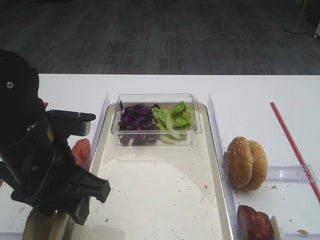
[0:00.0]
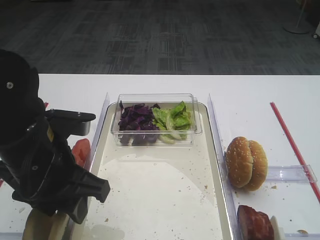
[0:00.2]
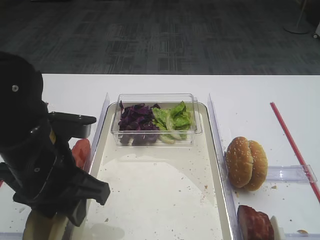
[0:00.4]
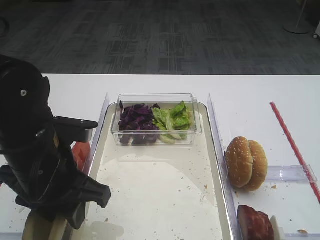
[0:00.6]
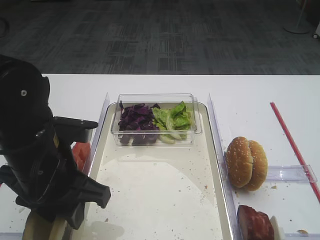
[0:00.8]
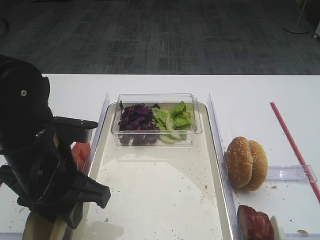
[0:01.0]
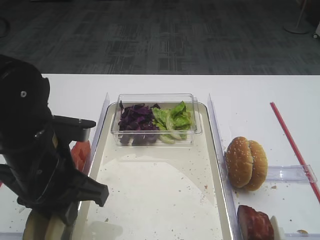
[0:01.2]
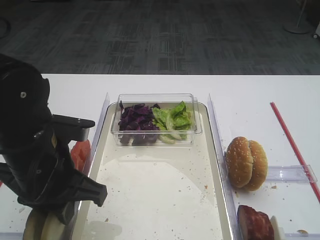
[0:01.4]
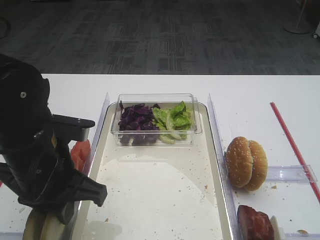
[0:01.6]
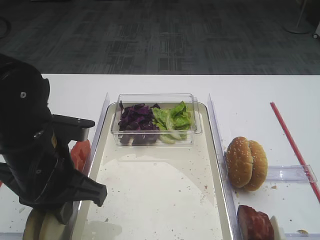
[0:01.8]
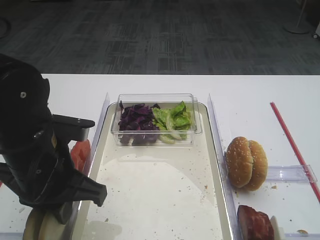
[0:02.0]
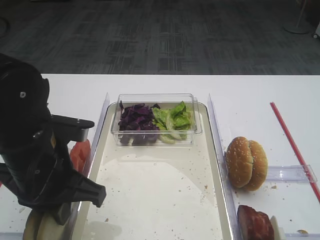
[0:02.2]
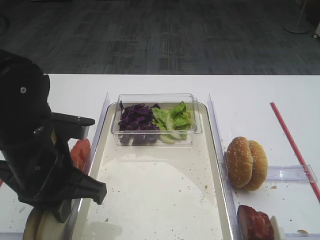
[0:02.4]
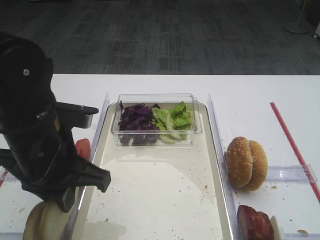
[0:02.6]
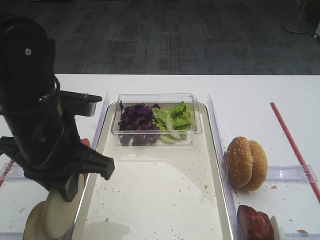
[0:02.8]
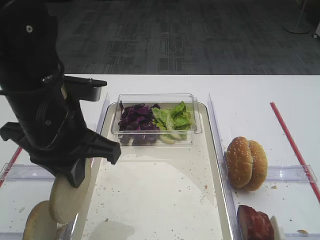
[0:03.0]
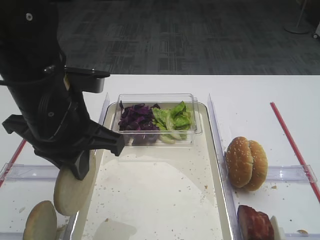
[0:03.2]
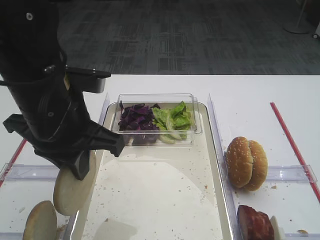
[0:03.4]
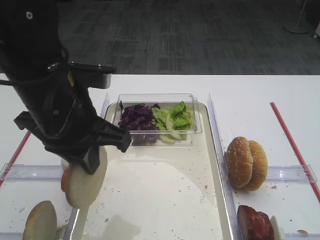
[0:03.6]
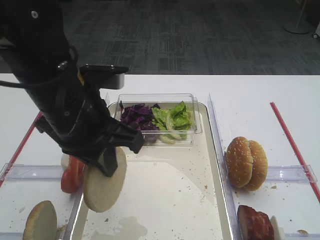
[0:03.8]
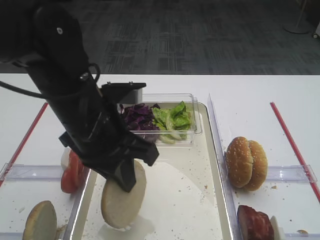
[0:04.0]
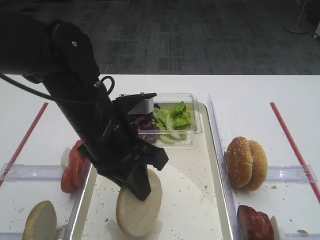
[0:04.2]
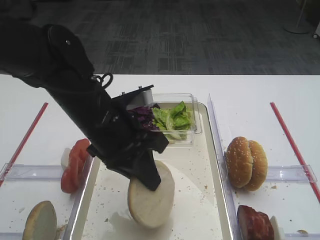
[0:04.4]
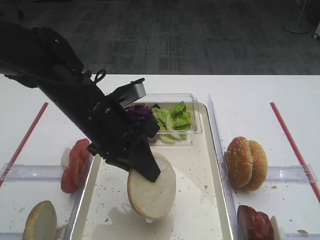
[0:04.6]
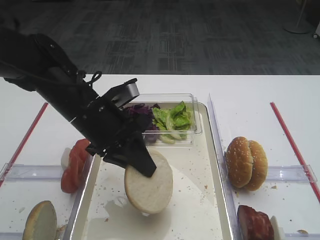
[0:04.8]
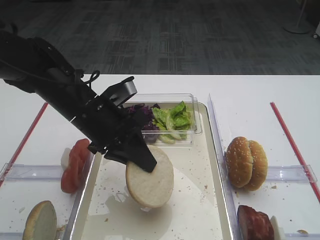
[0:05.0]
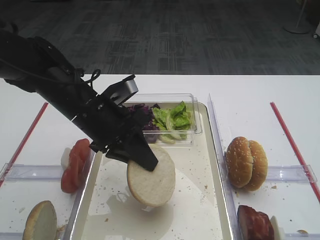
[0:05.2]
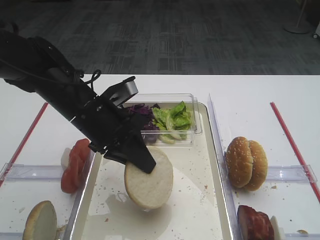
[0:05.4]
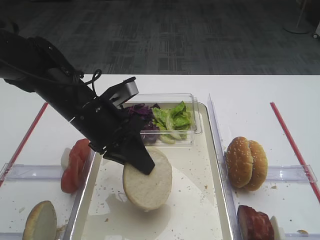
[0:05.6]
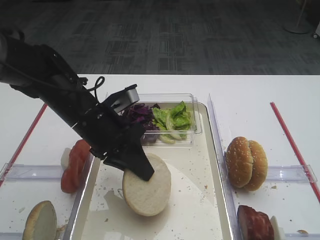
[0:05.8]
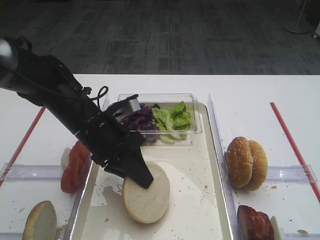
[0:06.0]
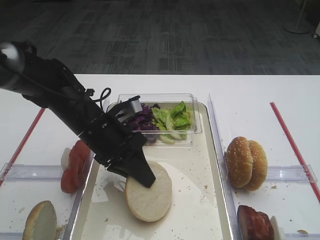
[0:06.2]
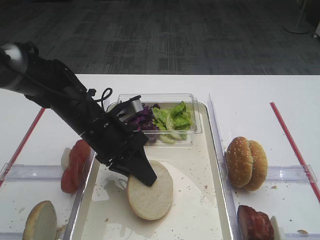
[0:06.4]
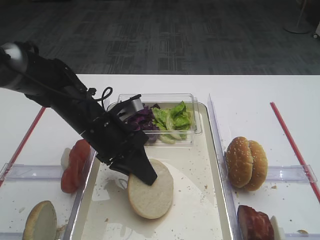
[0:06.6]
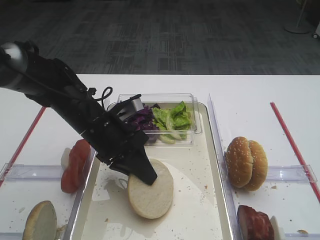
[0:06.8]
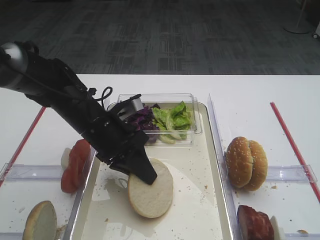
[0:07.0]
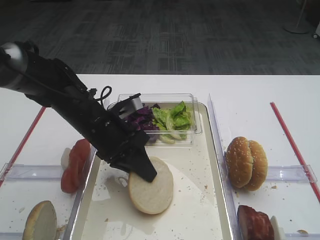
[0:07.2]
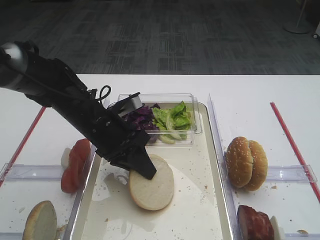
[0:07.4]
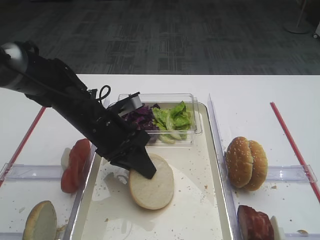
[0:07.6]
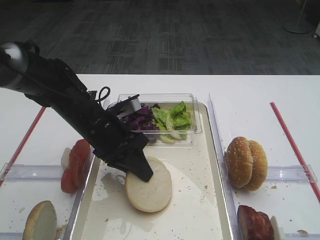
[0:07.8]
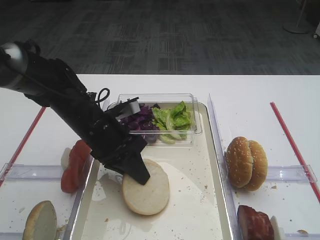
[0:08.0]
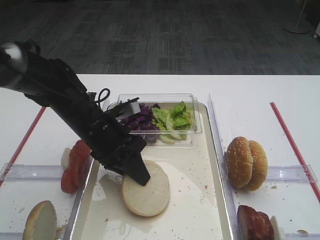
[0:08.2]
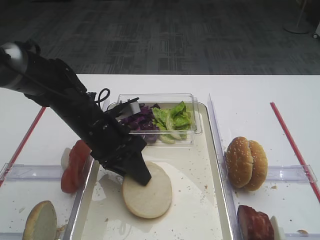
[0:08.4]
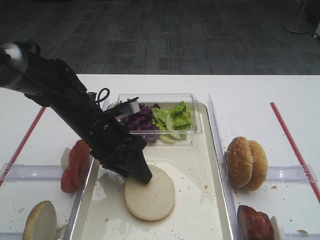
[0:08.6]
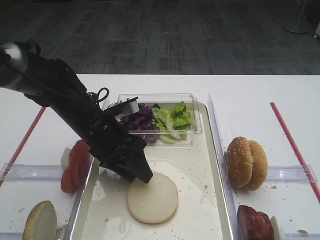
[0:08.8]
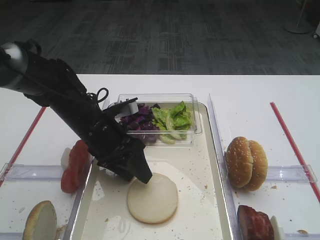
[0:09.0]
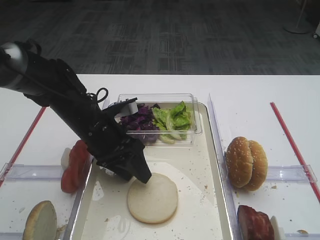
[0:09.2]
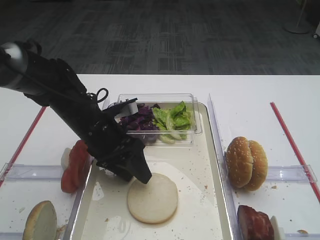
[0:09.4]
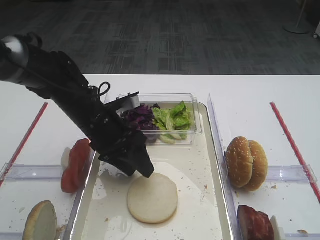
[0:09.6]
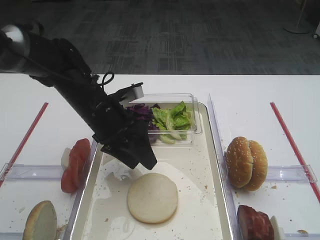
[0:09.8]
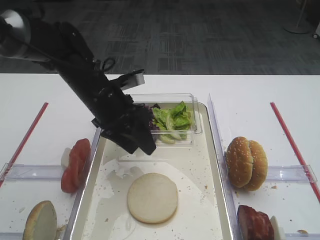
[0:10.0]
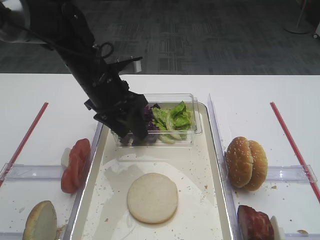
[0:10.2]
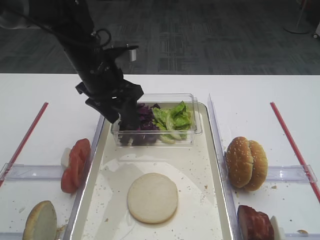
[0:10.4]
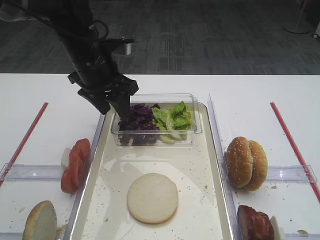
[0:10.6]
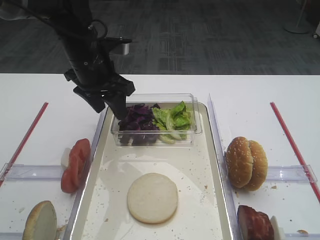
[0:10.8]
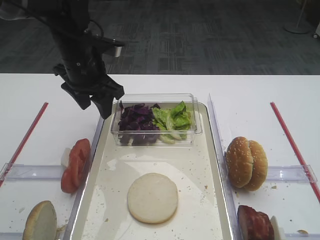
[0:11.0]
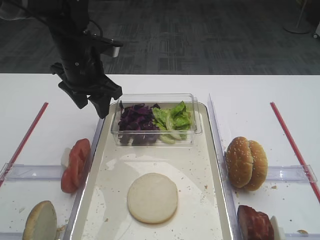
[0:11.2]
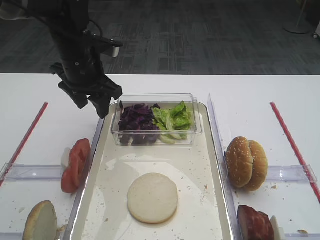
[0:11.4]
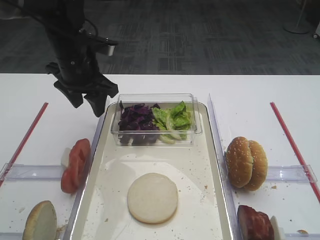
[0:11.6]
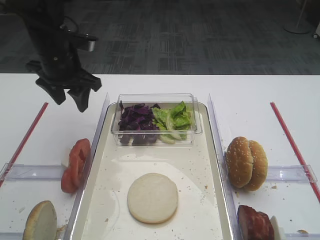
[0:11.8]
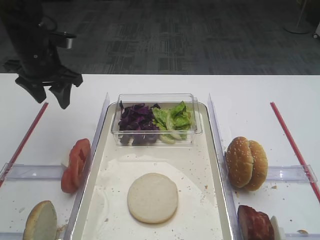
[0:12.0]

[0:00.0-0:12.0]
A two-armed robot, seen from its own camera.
Step, 0:00.0 to 0:02.8: Pick up the bread slice with the left gripper.
Step, 0:03.0 to 0:09.4: Place the bread slice on the tray with the left gripper.
0:00.0 to 0:01.6: The left gripper closes up.
0:01.6 to 0:03.0: The left gripper shifts some 5 cm upward.
0:03.0 to 0:04.4: The left gripper ends up roughly 5 cm from where it was.
0:04.4 to 0:06.0: The left gripper travels downward by some 5 cm.
0:06.0 to 0:07.6: The grippers stay close to where they were, moving slightly.
0:07.6 to 0:09.0: The left gripper opens.
0:09.0 to 0:10.4: The left gripper shifts approximately 10 cm upward and forward.
0:10.4 to 0:12.0: The left gripper travels to the left by some 10 cm.

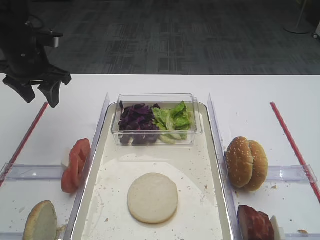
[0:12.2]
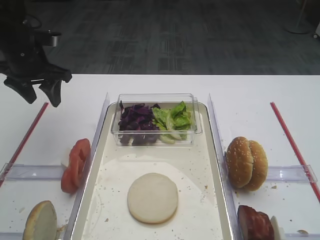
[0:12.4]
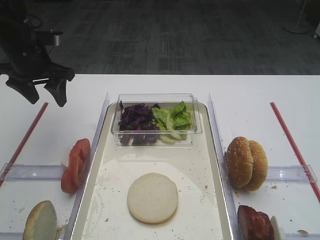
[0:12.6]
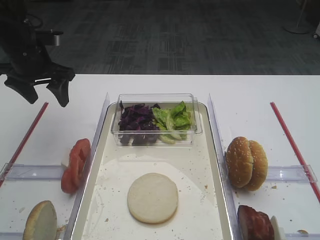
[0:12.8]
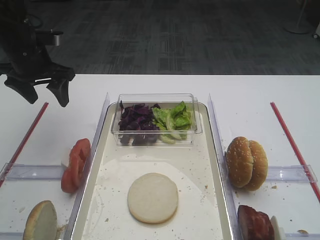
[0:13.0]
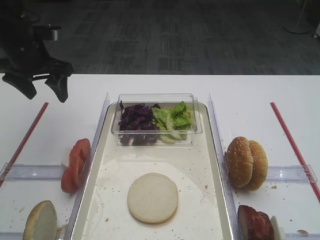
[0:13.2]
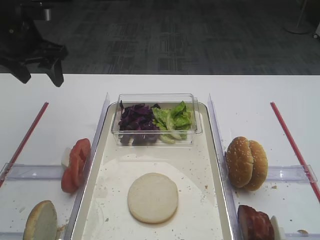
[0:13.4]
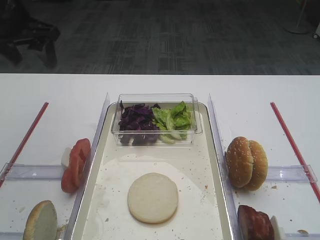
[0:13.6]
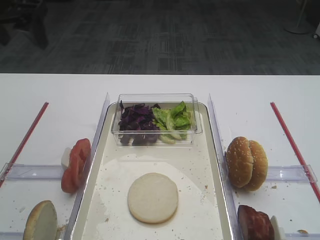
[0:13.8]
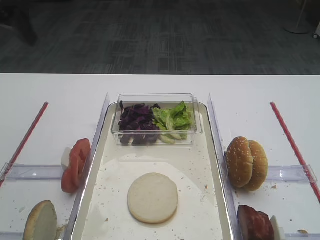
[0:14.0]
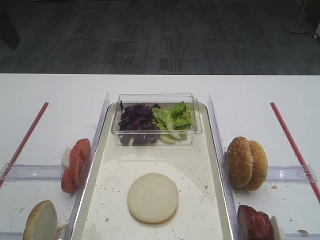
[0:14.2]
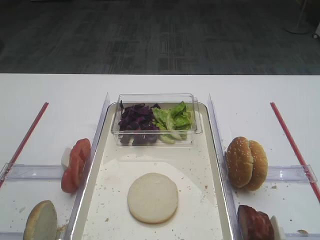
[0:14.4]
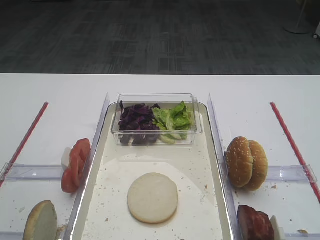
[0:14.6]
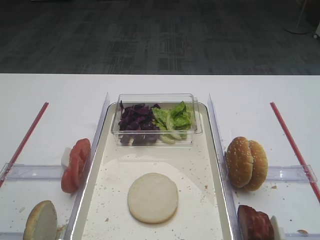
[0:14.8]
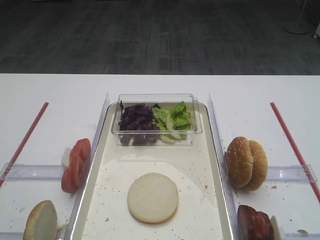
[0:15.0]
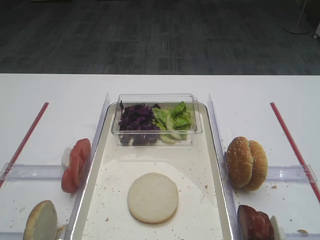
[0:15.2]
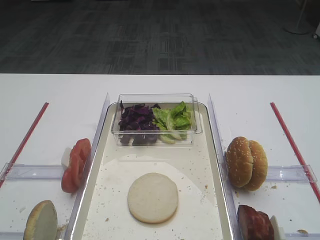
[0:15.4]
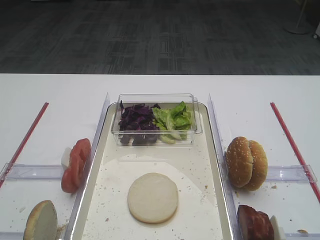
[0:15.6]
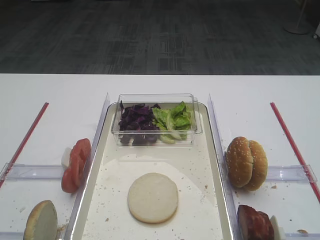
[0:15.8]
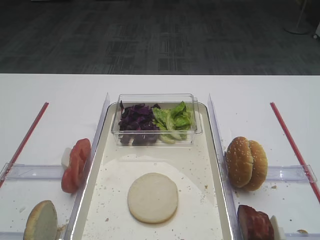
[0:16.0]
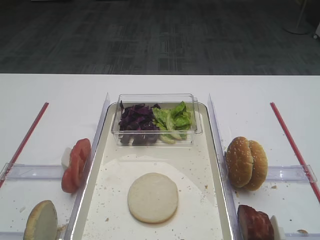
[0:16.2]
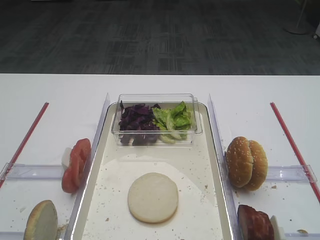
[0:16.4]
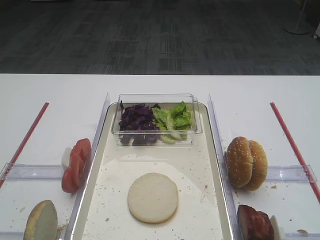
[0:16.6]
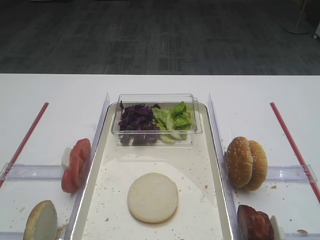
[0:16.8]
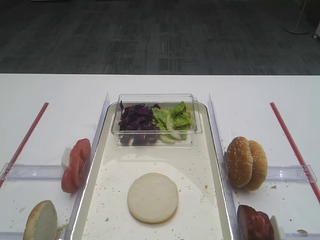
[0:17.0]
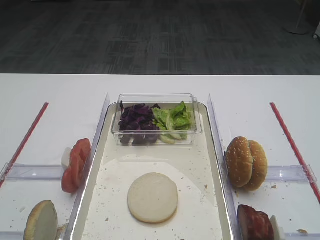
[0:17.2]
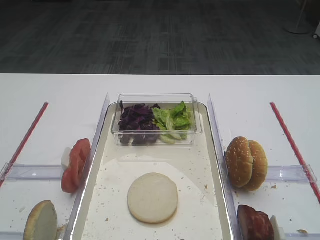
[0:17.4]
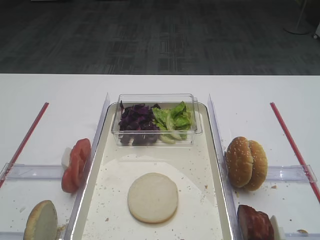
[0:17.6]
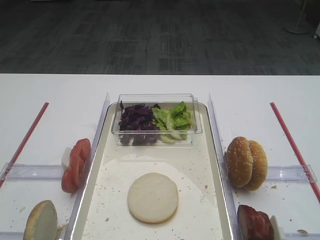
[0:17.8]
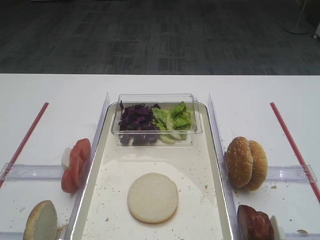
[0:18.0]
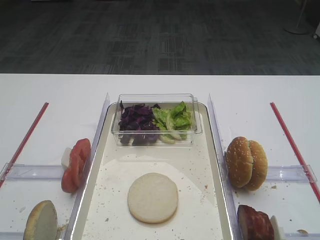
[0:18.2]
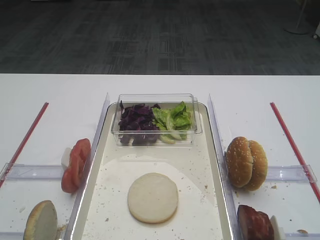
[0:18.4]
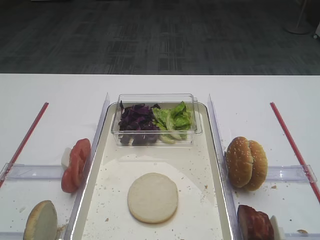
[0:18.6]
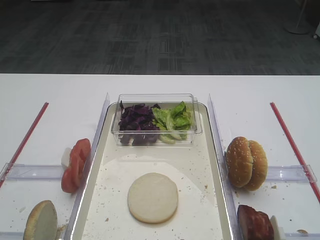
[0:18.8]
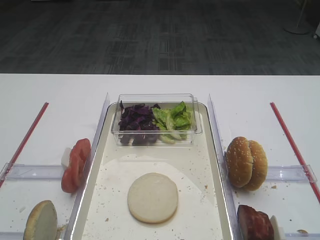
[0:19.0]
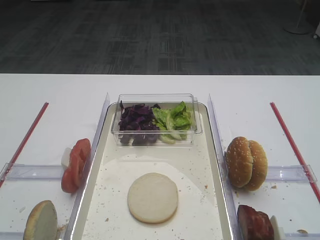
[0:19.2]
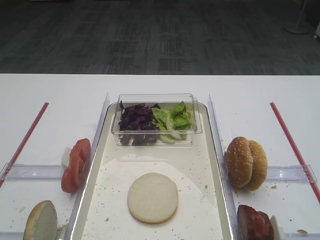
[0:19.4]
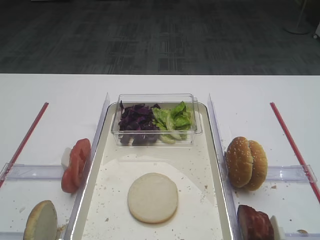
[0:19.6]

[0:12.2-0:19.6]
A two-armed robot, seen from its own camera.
0:12.2 to 0:13.6: The left gripper moves upward, some 10 cm.
0:13.6 to 0:15.2: The left gripper is displaced backward by about 30 cm.
0:18.2 to 0:19.6: The two grippers keep their place.

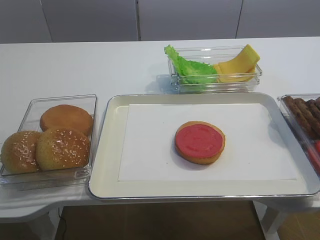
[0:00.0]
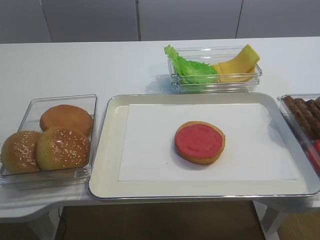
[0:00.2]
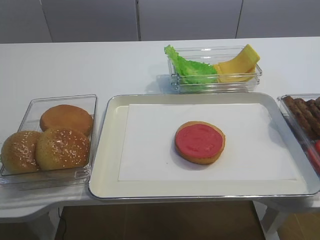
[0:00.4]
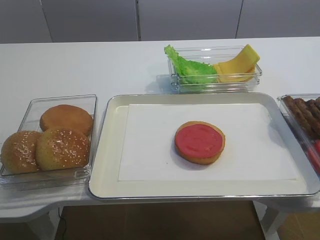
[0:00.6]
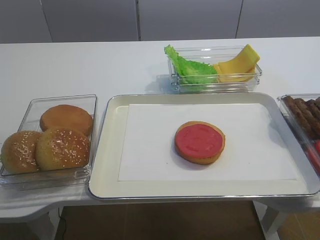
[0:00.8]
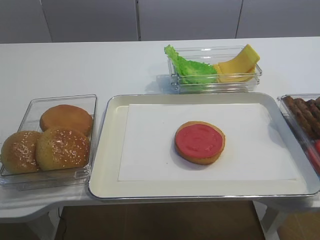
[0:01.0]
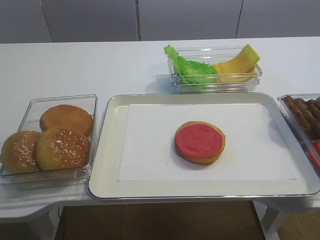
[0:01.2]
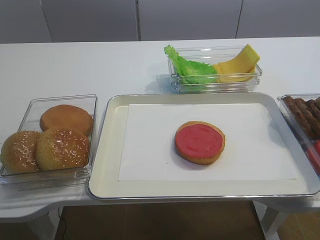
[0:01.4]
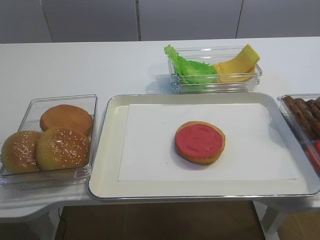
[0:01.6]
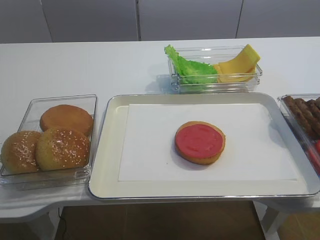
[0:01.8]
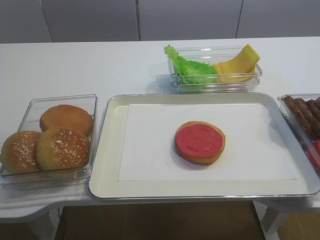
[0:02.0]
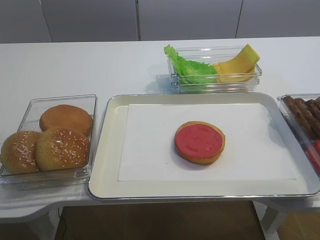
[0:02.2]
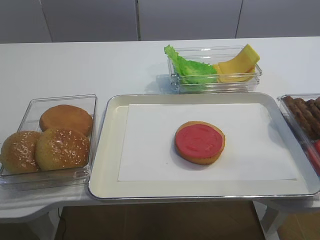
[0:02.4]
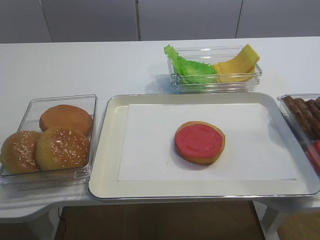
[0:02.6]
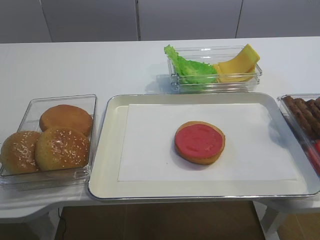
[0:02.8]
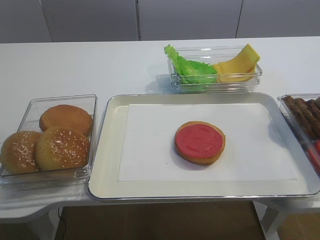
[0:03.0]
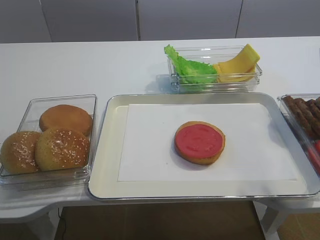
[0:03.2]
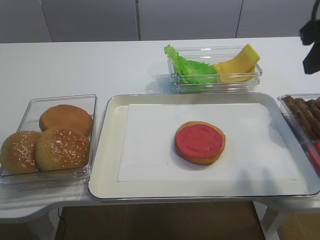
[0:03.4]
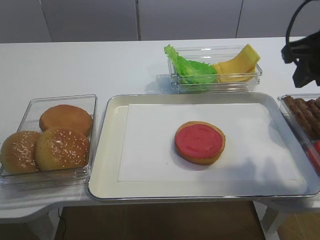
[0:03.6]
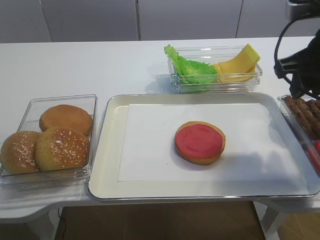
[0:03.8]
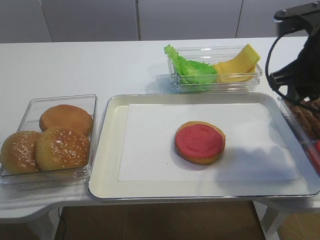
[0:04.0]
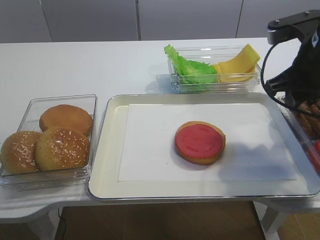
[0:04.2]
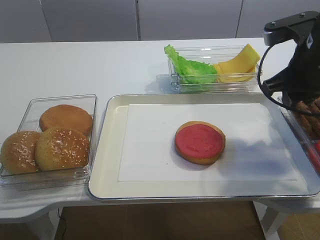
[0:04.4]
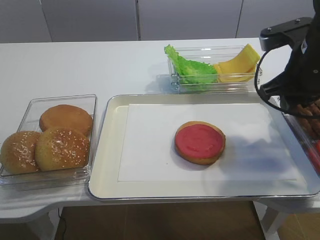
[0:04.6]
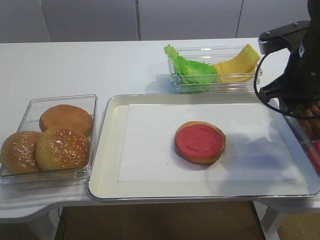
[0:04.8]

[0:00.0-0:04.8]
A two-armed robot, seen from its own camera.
0:01.6 to 0:03.2: The right gripper goes approximately 20 cm forward and upward.
0:03.2 to 0:04.8: The right gripper shifts approximately 15 cm downward and forward.
